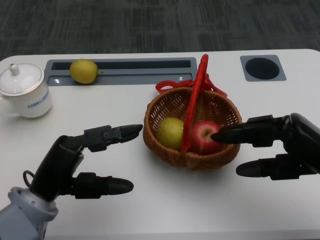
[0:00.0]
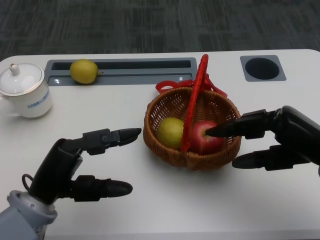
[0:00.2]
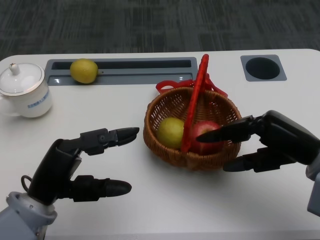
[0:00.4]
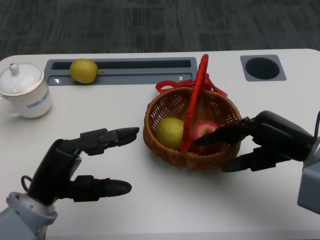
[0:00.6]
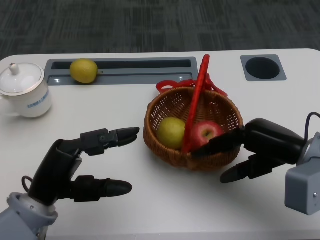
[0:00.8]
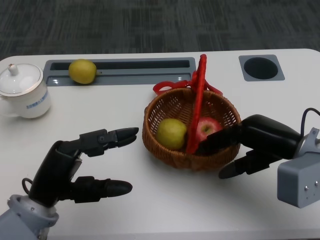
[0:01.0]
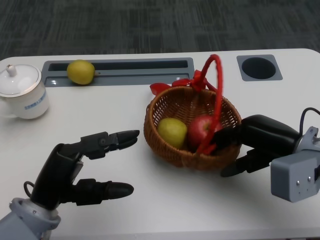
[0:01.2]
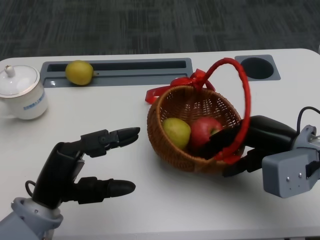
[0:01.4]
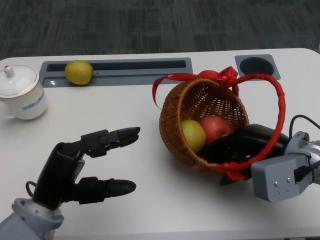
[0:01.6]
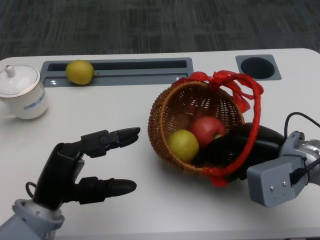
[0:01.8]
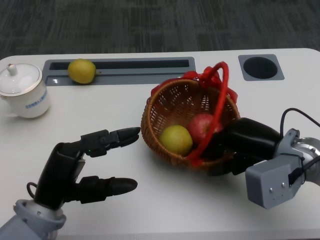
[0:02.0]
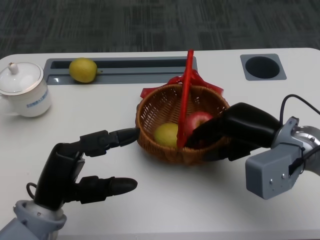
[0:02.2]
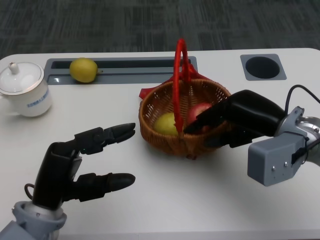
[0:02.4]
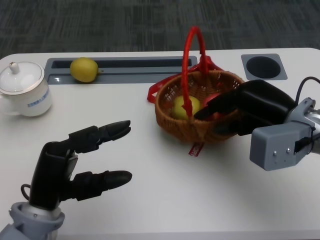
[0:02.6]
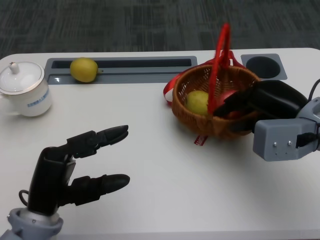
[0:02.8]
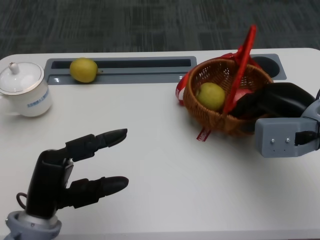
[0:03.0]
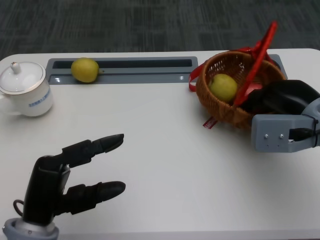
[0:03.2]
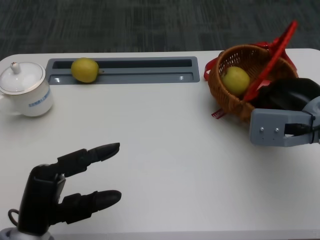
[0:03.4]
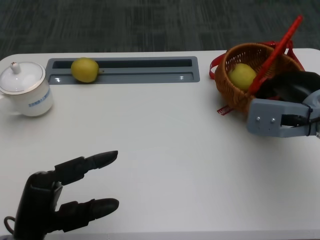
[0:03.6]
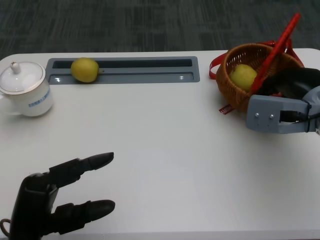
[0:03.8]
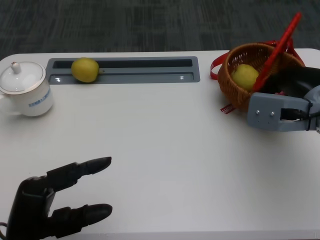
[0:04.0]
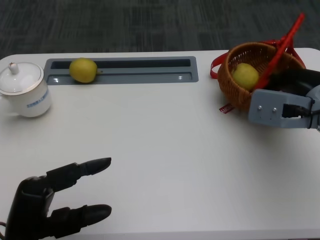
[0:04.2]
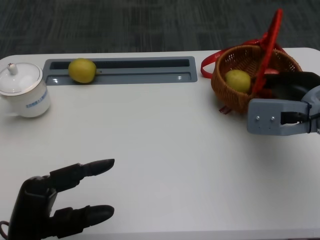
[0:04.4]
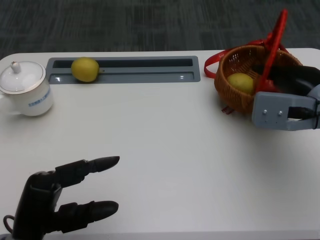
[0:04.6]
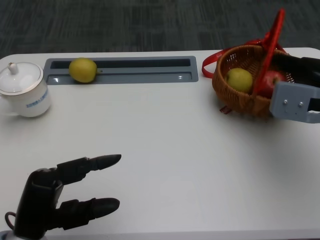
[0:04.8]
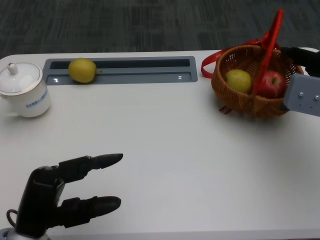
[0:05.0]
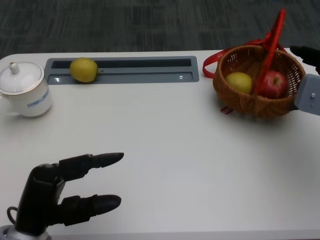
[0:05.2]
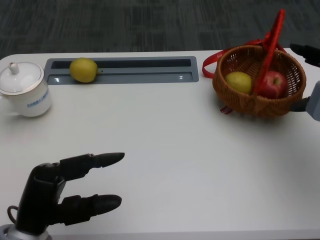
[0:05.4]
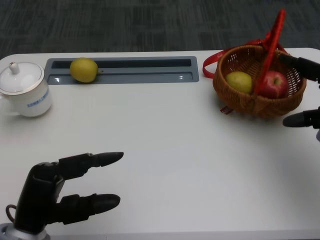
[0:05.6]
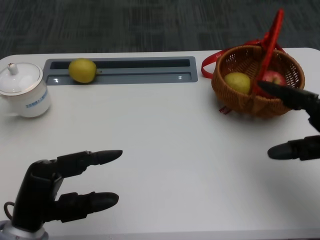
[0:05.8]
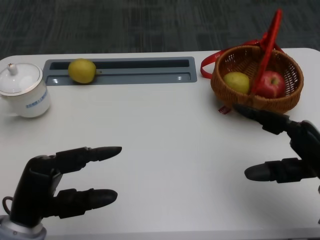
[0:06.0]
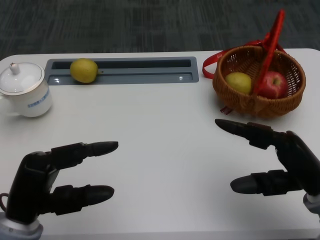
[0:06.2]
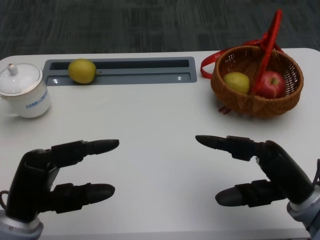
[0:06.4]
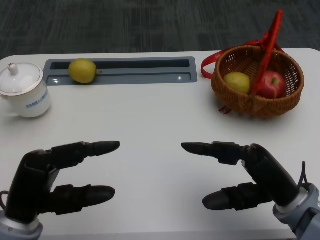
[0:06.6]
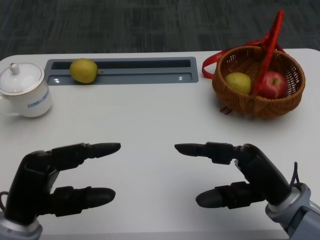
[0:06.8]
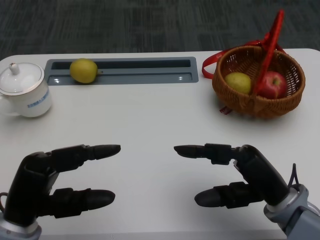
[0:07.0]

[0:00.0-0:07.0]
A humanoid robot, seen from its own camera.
Step, 0:00.4 to 0:02.0: Move the basket to the front of the table with the right gripper.
0:00.0 to 0:01.4: The right hand is displaced forward by about 5 cm.
0:02.8 to 0:04.2: The left hand ends up some 5 cm from where it was.
0:04.2 to 0:05.6: The right hand heads to the right, covering roughly 5 cm.
0:05.6 to 0:07.0: The right hand heads to the left, backward and downward, covering about 15 cm.
